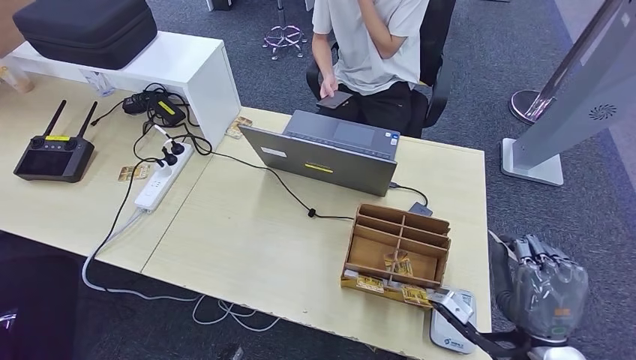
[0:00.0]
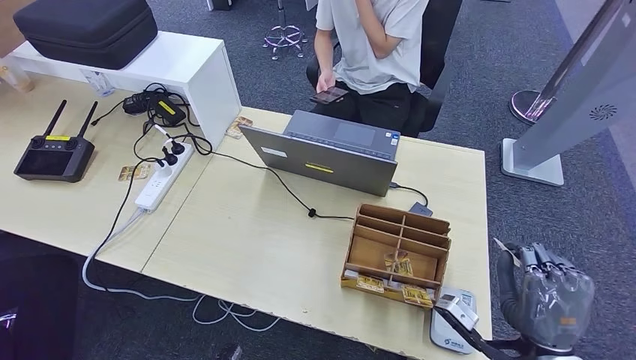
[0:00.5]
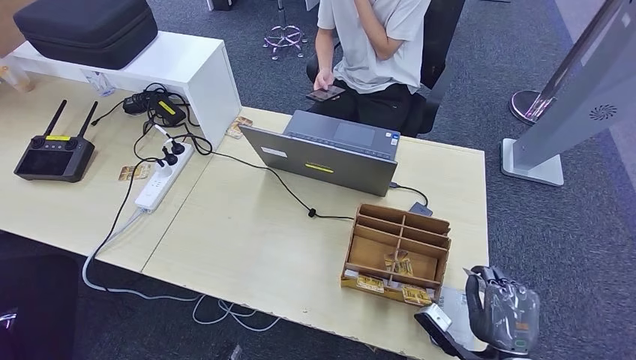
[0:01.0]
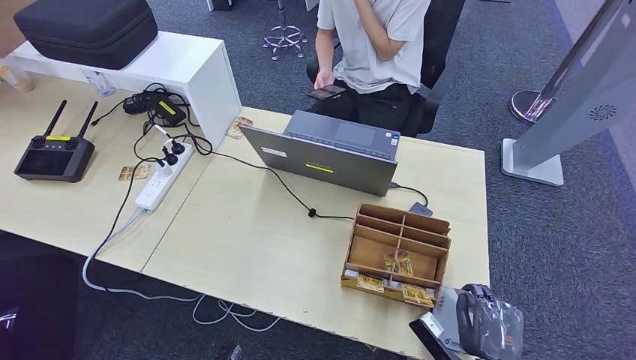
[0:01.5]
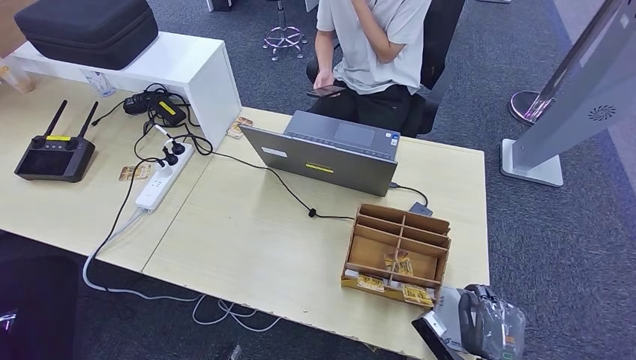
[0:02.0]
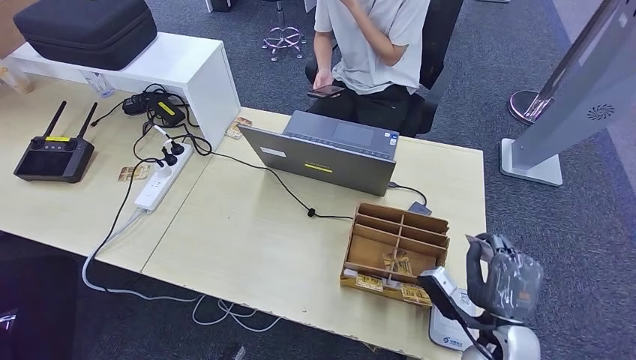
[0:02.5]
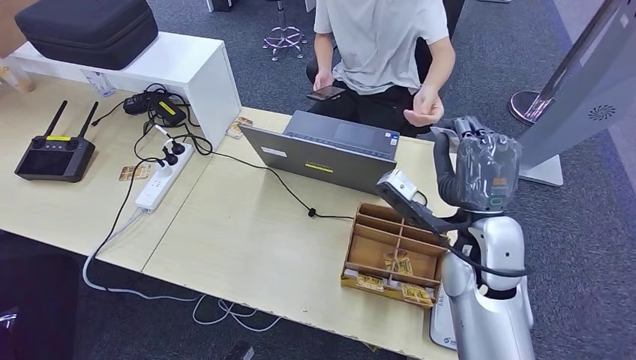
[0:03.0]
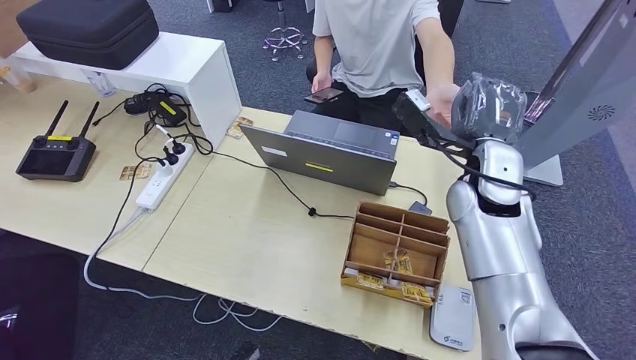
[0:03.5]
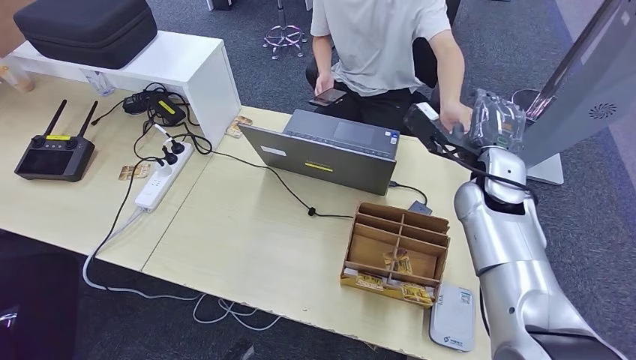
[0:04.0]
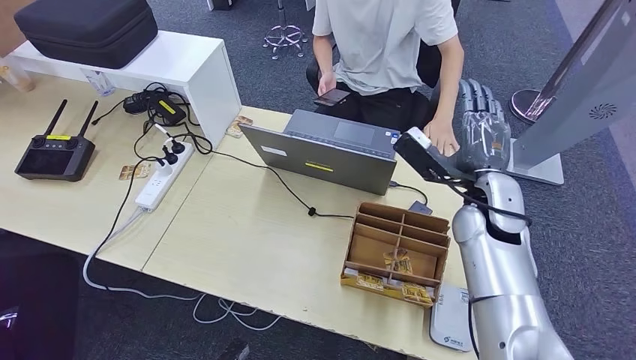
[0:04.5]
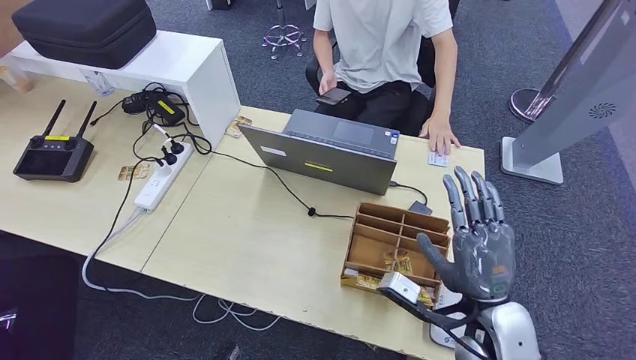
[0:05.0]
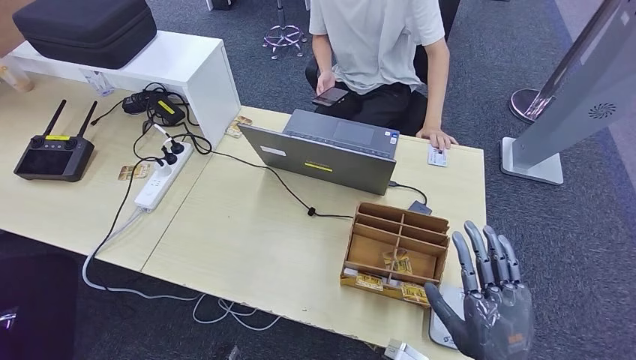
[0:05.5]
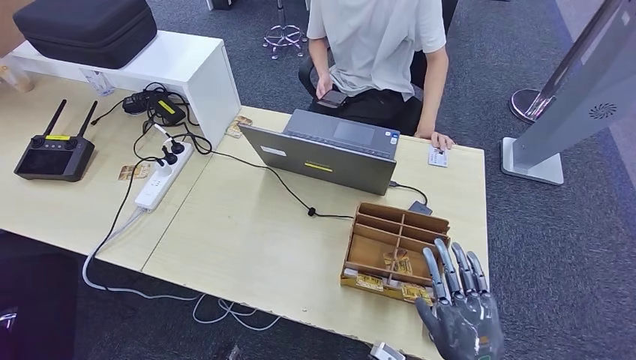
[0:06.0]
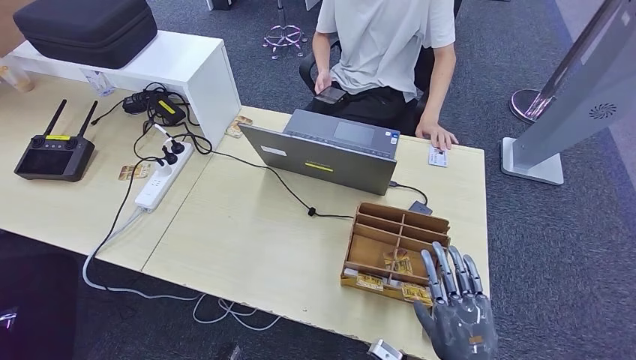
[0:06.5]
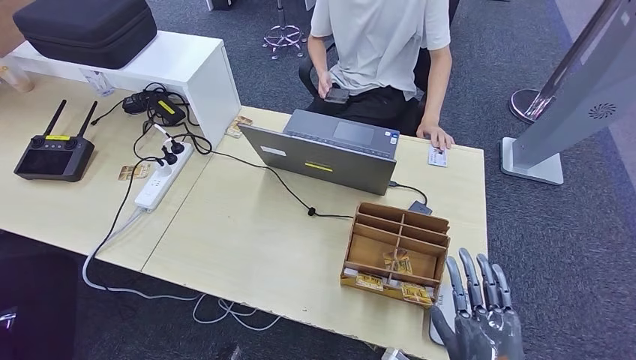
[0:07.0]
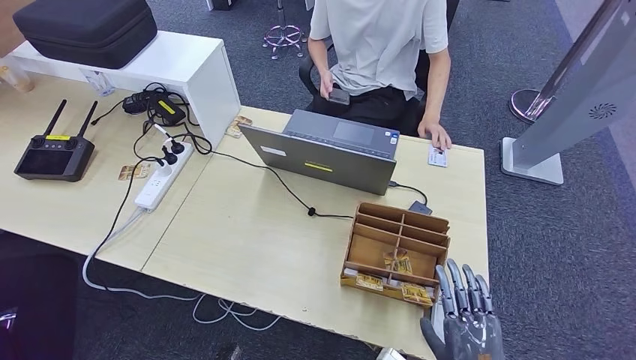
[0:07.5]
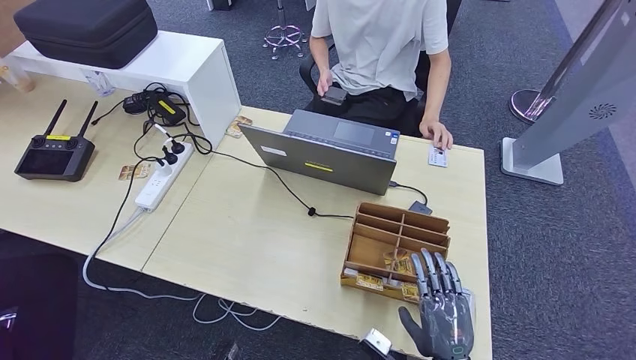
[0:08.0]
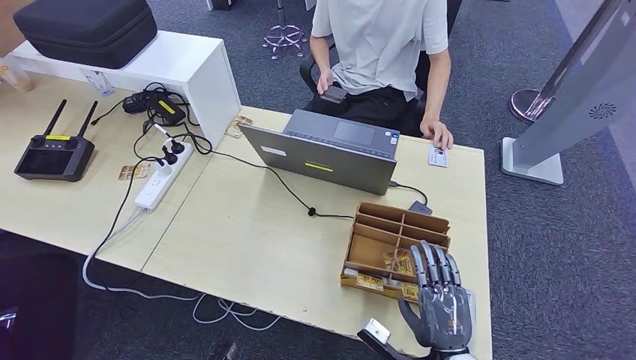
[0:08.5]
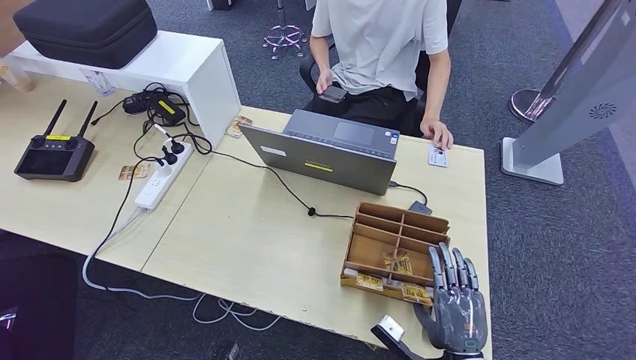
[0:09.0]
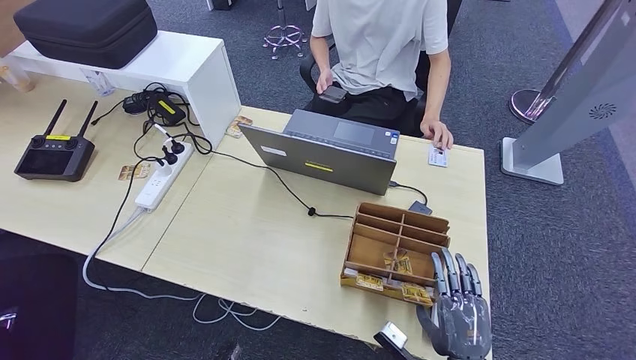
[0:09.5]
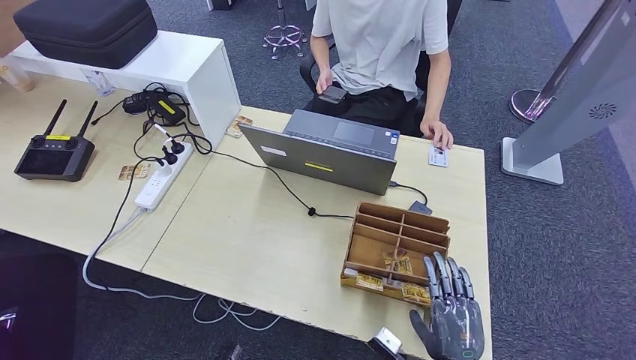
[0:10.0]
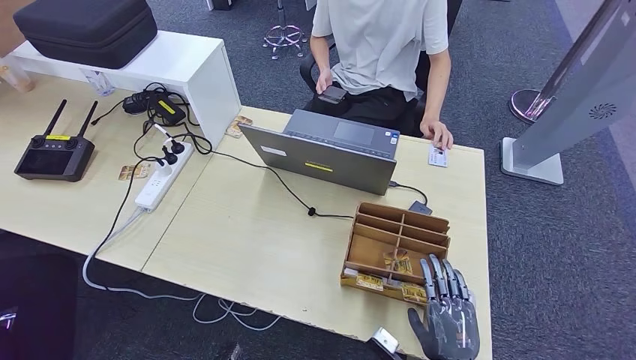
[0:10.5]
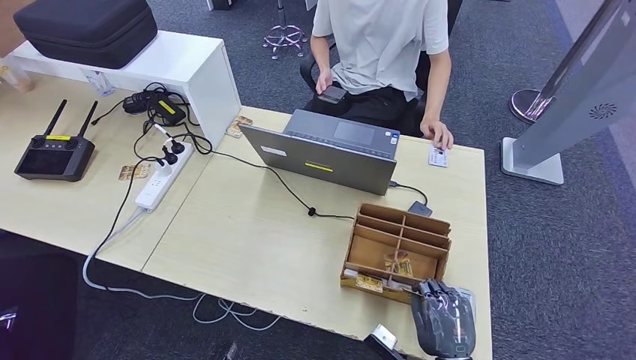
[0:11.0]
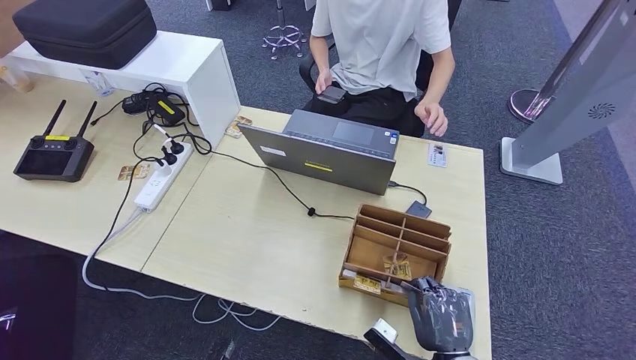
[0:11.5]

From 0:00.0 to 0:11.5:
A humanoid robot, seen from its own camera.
Step, from 0:00.0 to 0:02.5: Place the ID card on the card reader.
Step, from 0:03.5 to 0:05.0: Hand the ID card to the person.
From 0:00.0 to 0:02.0: The right hand goes roughly 15 cm downward.
From 0:02.0 to 0:04.0: The right hand is displaced upward and forward by approximately 35 cm.
From 0:04.0 to 0:06.0: The right hand is displaced backward and downward by approximately 30 cm.
From 0:06.0 to 0:07.5: The hands make only small movements.
From 0:07.5 to 0:11.5: The hands make only small movements.

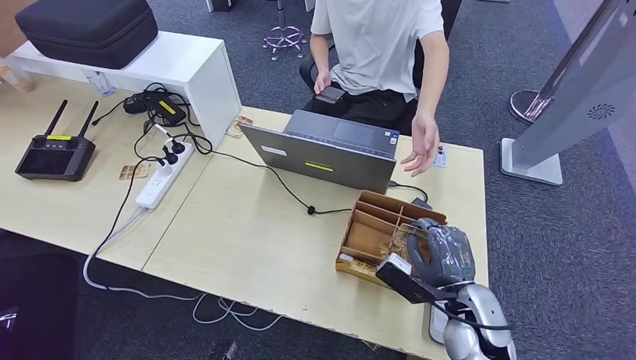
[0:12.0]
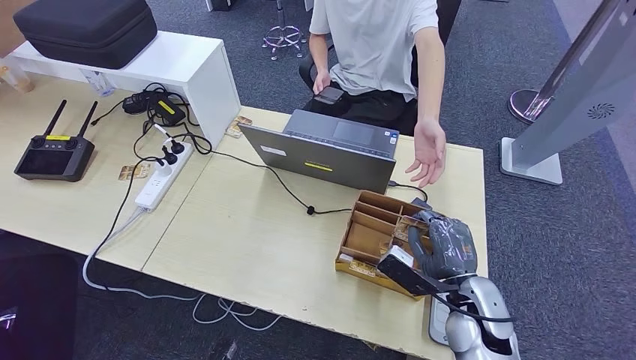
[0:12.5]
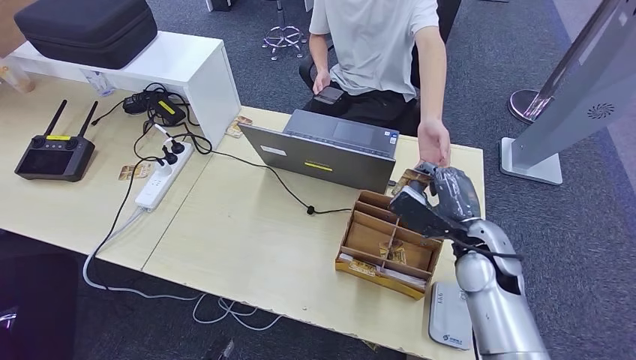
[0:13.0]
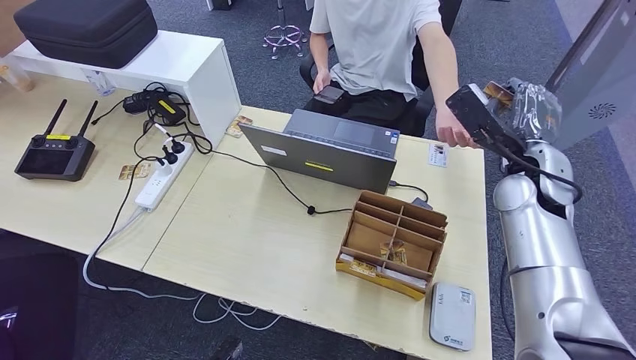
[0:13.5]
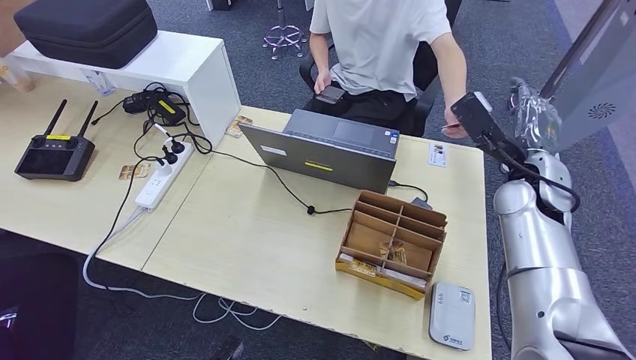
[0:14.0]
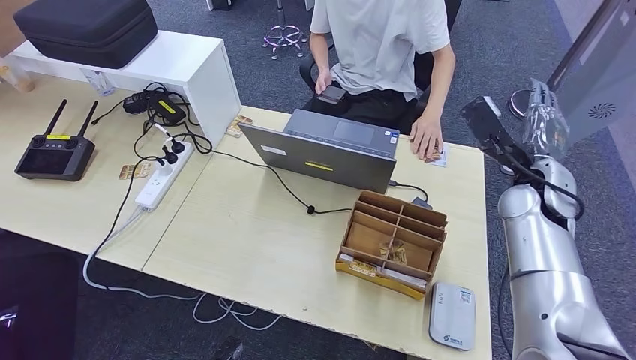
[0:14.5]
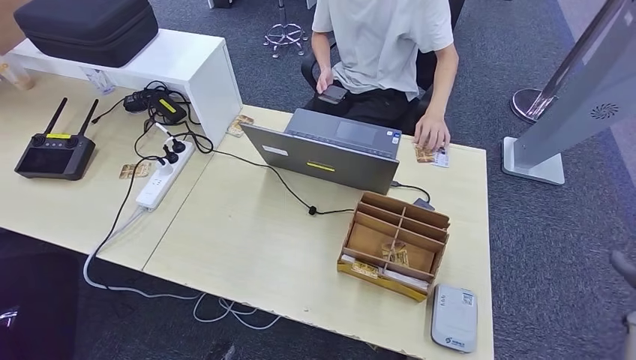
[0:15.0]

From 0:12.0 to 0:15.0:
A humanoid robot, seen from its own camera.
Step, from 0:13.5 to 0:15.0: Hand the room key to the person.
From 0:12.0 to 0:13.5: The right hand travels upward and forward by about 25 cm.
From 0:13.5 to 0:15.0: The right hand moves to the right, downward and backward, about 35 cm.
